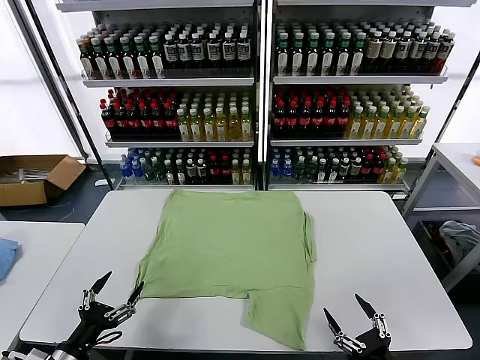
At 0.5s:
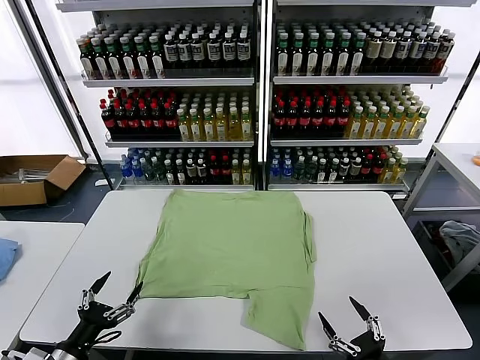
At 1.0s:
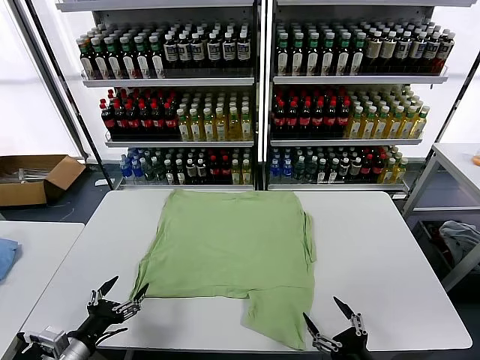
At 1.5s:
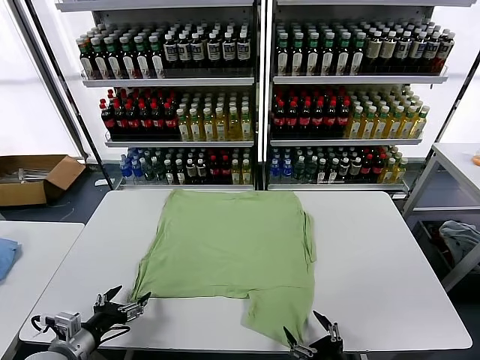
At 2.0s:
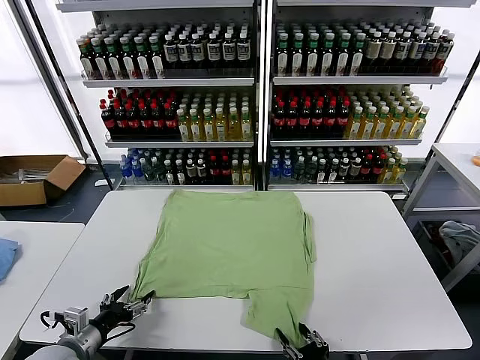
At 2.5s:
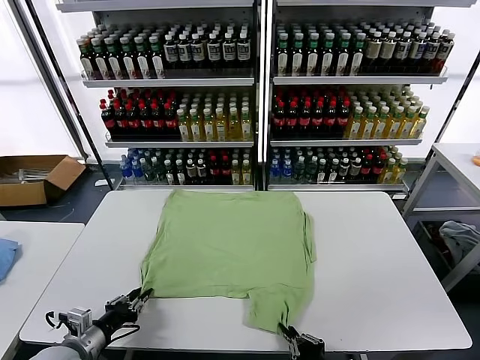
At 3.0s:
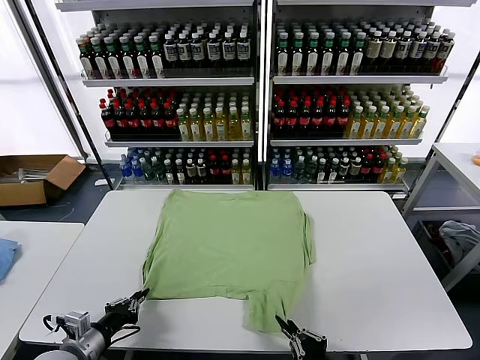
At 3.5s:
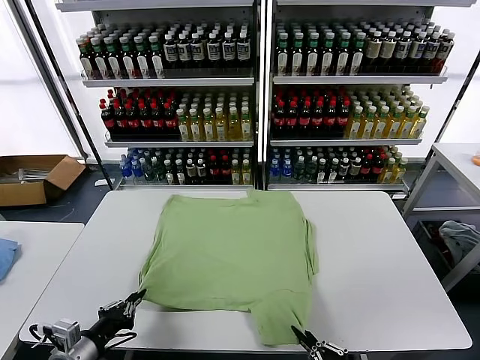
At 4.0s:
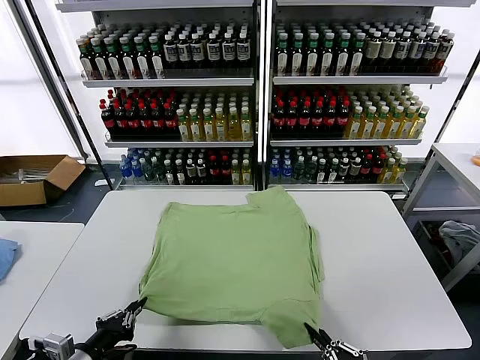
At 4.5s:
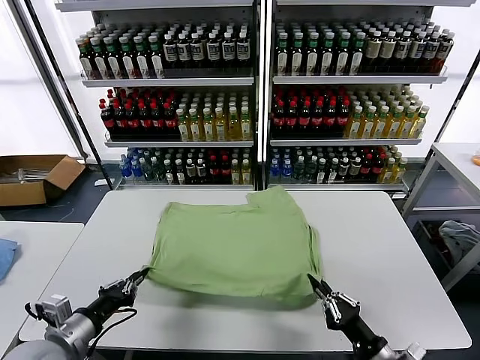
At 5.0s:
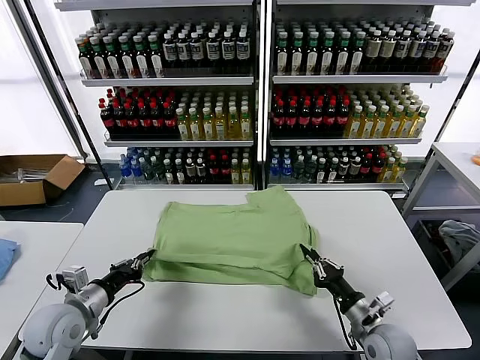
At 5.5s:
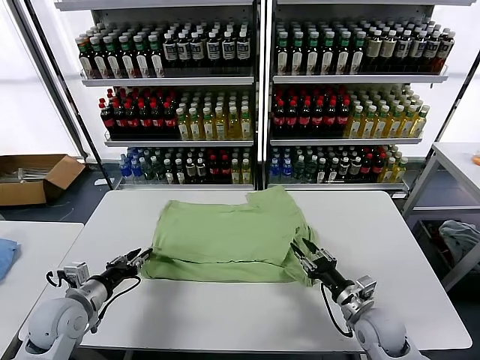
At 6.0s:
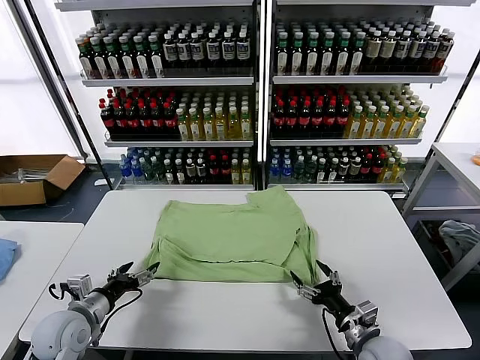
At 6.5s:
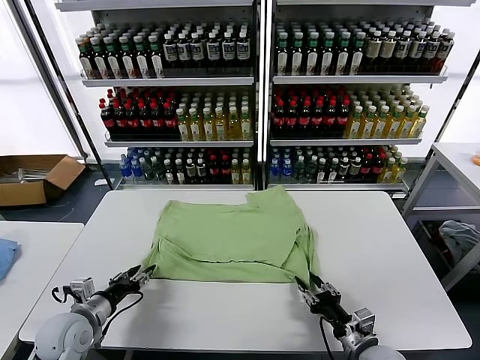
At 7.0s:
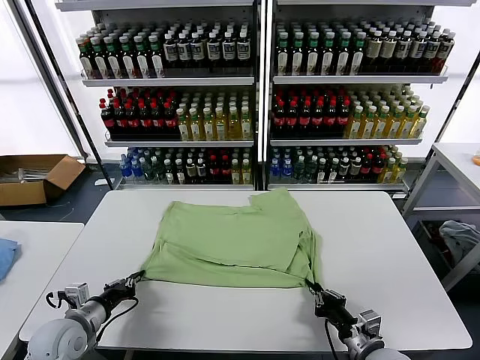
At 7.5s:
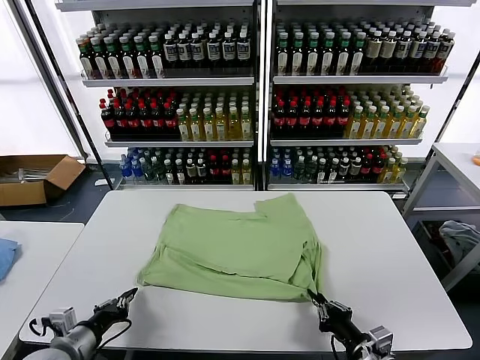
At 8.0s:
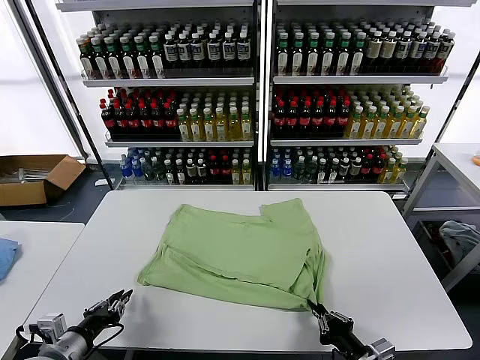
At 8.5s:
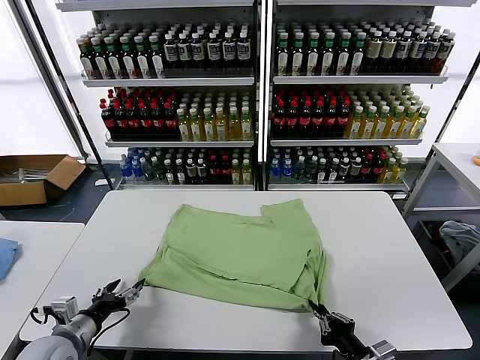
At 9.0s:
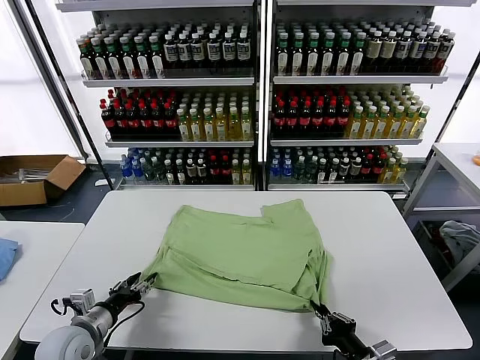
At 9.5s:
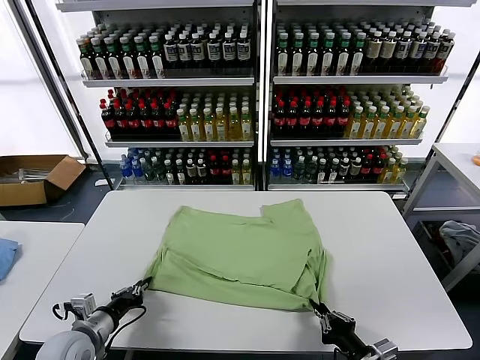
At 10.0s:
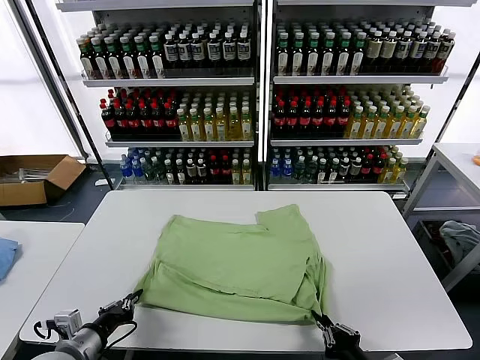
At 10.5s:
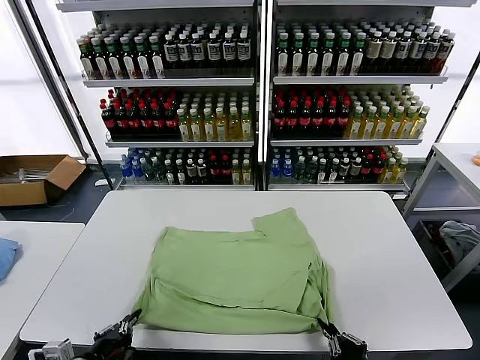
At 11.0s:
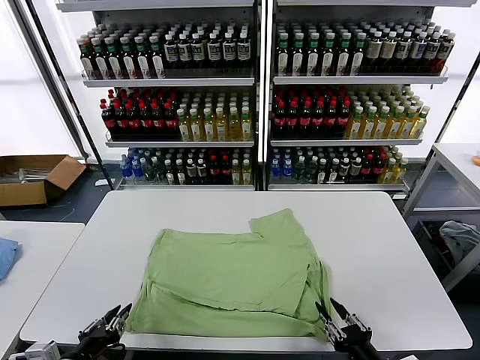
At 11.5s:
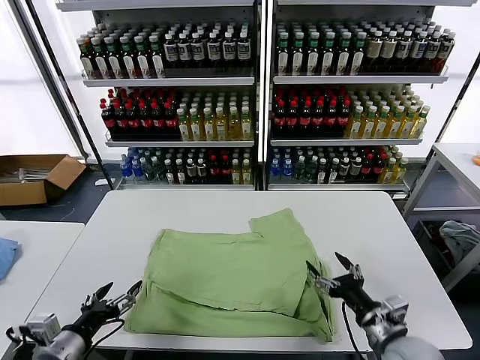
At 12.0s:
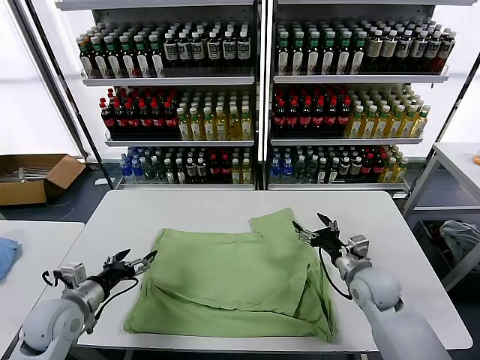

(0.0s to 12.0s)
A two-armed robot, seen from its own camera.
Task of the whole recording: fold and organize the clothes.
Step, 0.0s - 2.5s: use both grippers simultaneously to clamp the lower edge of the clothing fabric.
Step, 3.0s - 5.5s: use both grippers to drag the lower edge of the fabric forward and fold it over the upper edge.
Step, 6.0s - 10.5s: Drag the clothes downward with both gripper.
2.0s - 4.0s: The right gripper moves to the right, roughly 10 cm, and closes. Meanwhile the left gripper is displaced backward and upward by approximately 10 cm, and closes.
4.0s - 6.0s: The two grippers go some 15 cm forward. The right gripper opens up, while the left gripper opens its fingers.
6.0s - 8.0s: The two grippers go some 10 cm backward. The left gripper closes up. The right gripper closes.
8.0s - 10.0s: The left gripper opens and closes again.
10.0s - 12.0s: The right gripper moves forward, some 25 cm, and opens up. Meanwhile the left gripper heads forward, covering approximately 10 cm, and opens.

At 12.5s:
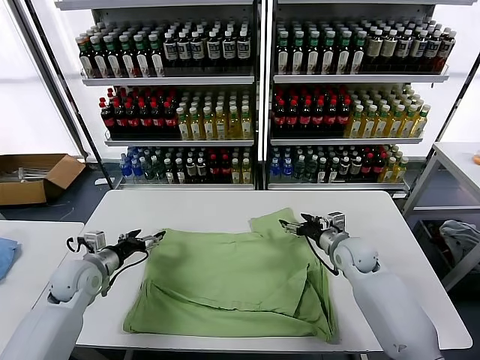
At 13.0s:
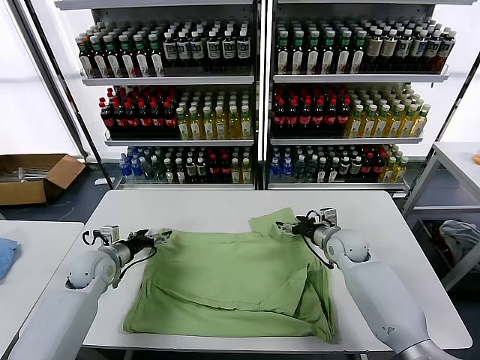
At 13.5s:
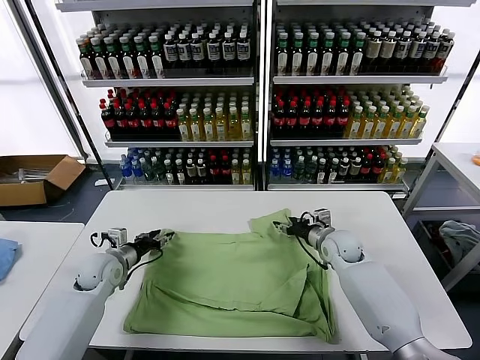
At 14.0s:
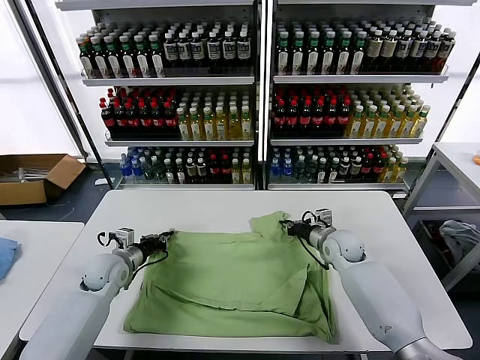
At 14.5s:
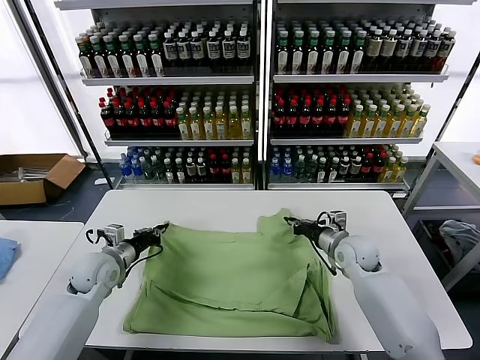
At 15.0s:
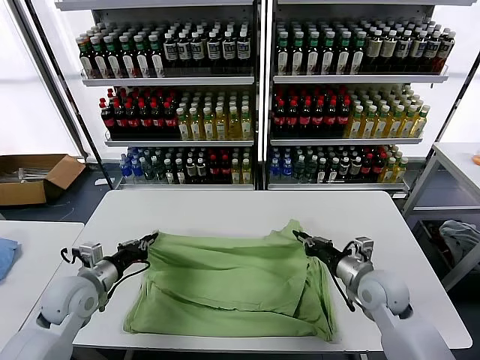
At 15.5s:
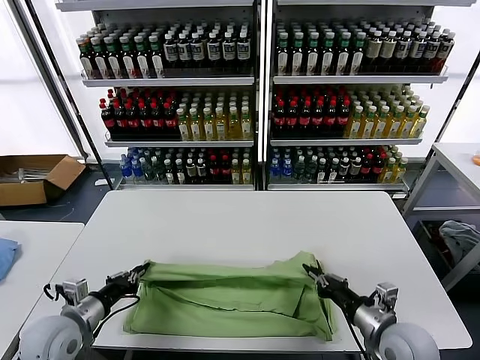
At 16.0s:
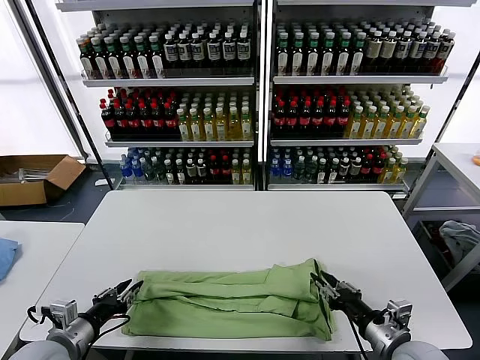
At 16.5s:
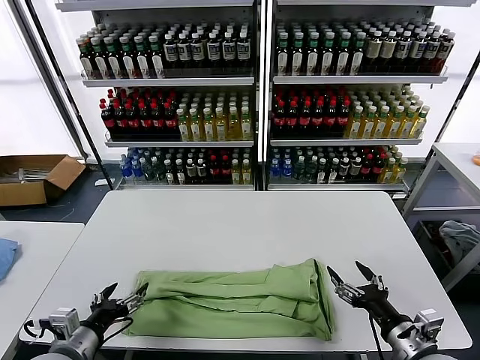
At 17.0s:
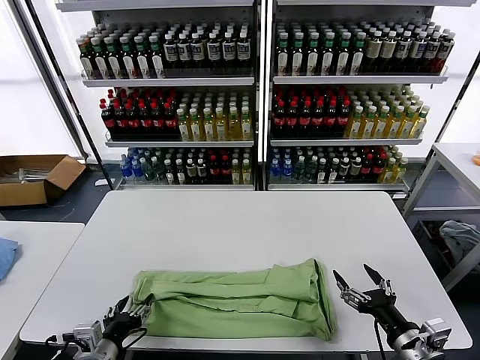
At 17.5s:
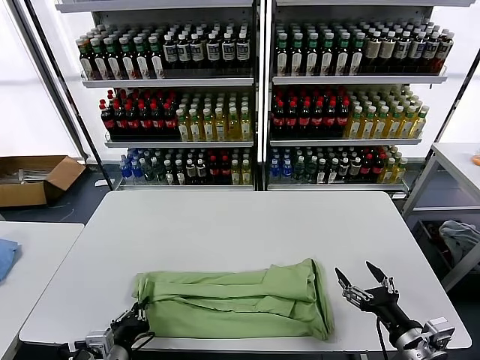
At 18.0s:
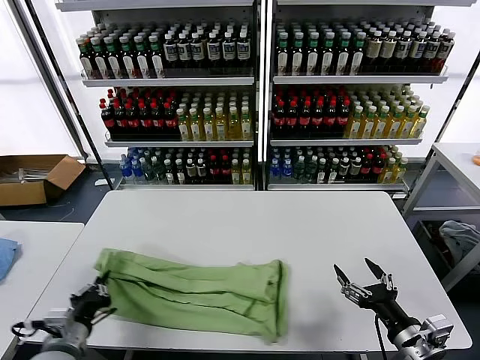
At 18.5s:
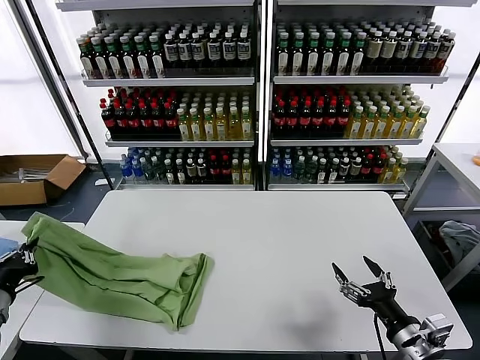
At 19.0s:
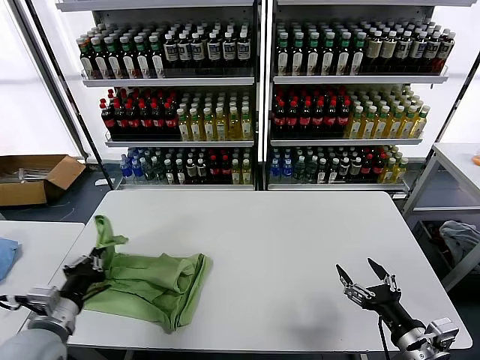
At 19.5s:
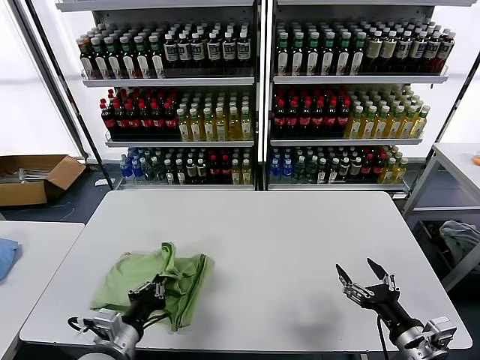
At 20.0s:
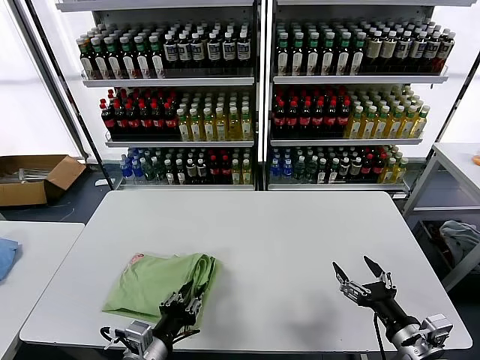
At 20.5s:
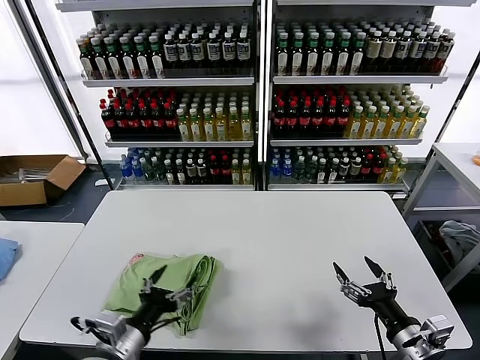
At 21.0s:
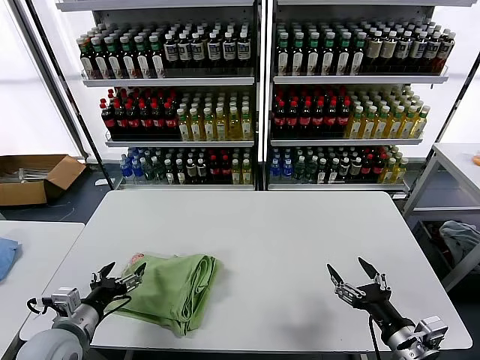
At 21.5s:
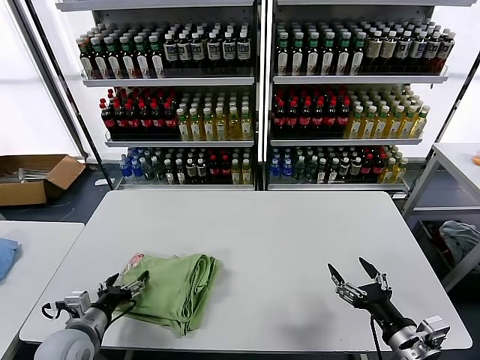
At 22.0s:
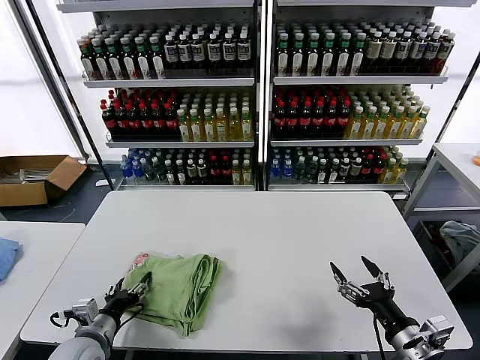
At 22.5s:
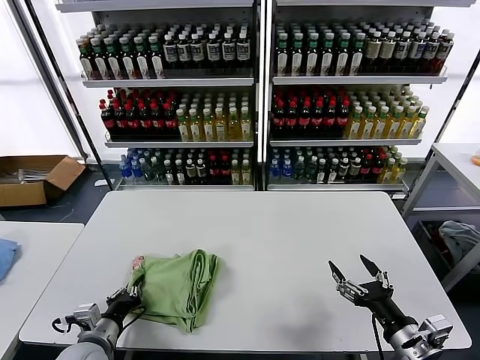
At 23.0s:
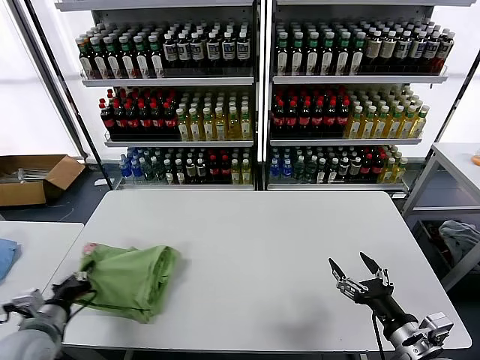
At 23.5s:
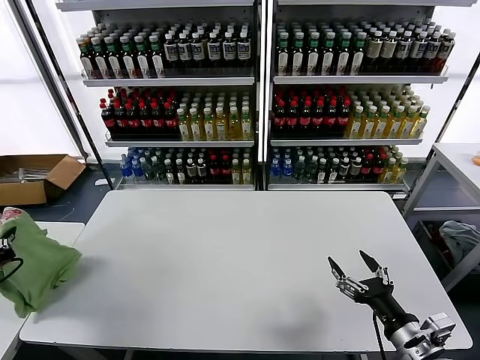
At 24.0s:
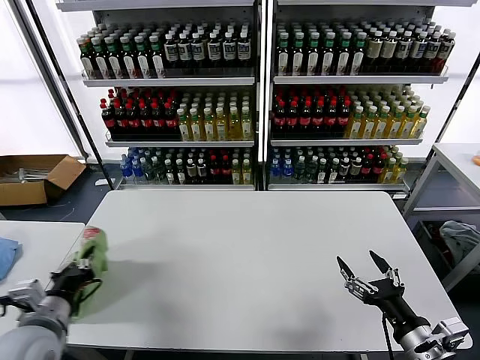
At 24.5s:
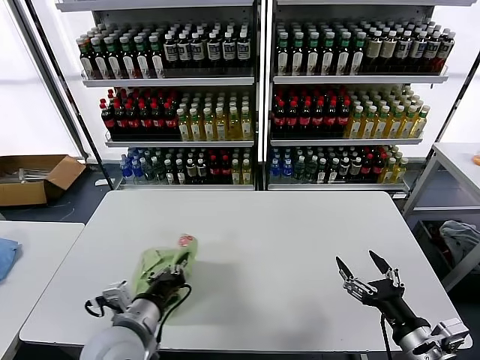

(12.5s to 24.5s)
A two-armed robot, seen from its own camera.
Task of the whole recording: fold and organize the clothes.
Step, 12.5s - 14.0s: use both grippers simultaneously to clamp the upper edge of the clothing fabric.
Step, 14.5s - 16.0s: use both grippers to drag the upper edge of the fabric backward and fold it over the lower edge.
Step, 16.5s - 17.5s: use the left gripper to clamp the left edge of the fabric.
Step, 18.0s - 20.0s: use the left gripper to drag the left edge of the fabric to the left and folds it over the right edge.
12.5s - 14.5s: The right gripper closes up, while the left gripper closes its fingers.
14.5s - 16.5s: The two grippers go some 25 cm backward. The left gripper opens its fingers. Meanwhile the right gripper opens its fingers.
16.5s - 18.5s: The left gripper travels to the left by some 15 cm, and closes.
18.5s - 20.5s: The left gripper moves to the right, some 25 cm, and opens its fingers.
20.5s - 22.5s: The left gripper goes approximately 15 cm to the left, downward and forward, and closes its fingers.
22.5s - 24.5s: The left gripper goes about 15 cm upward and to the right.

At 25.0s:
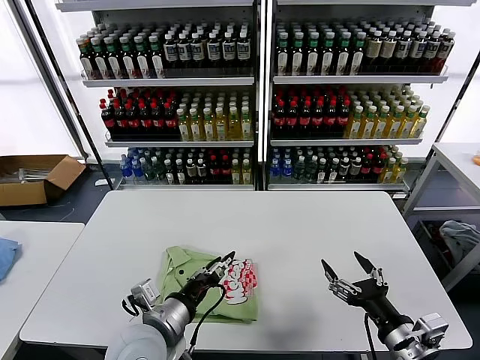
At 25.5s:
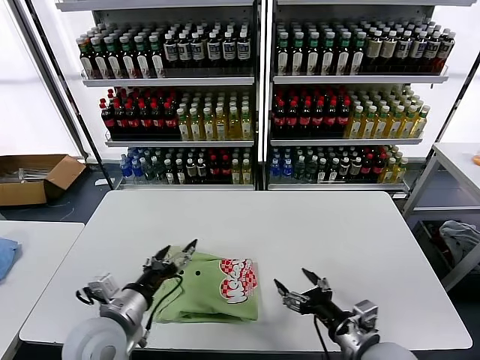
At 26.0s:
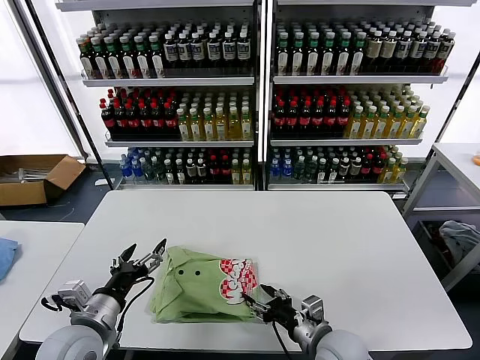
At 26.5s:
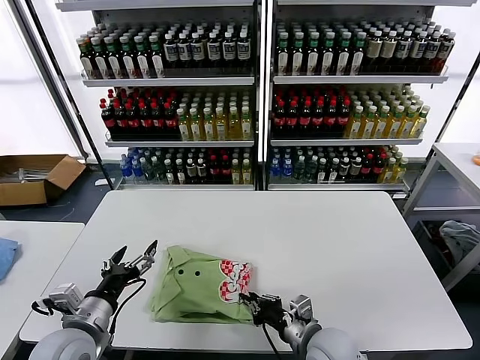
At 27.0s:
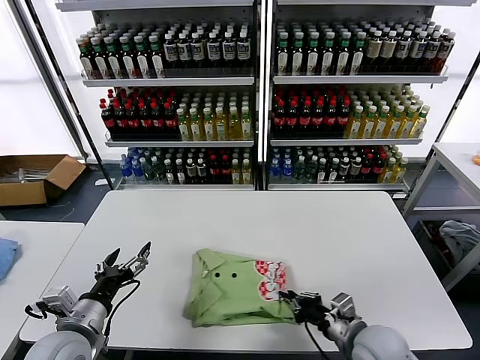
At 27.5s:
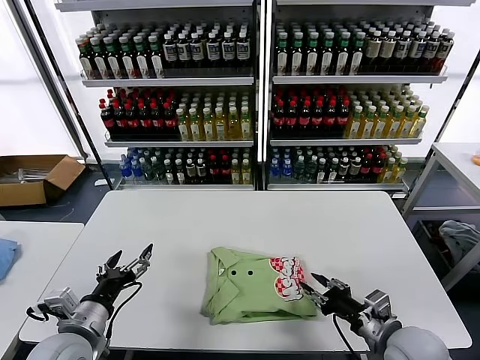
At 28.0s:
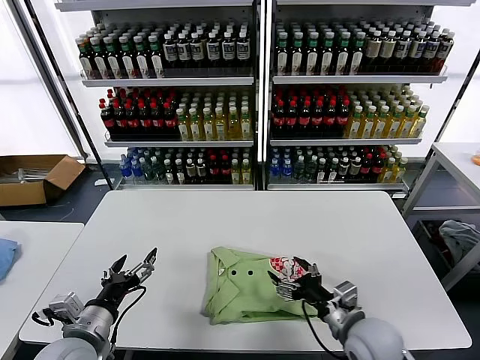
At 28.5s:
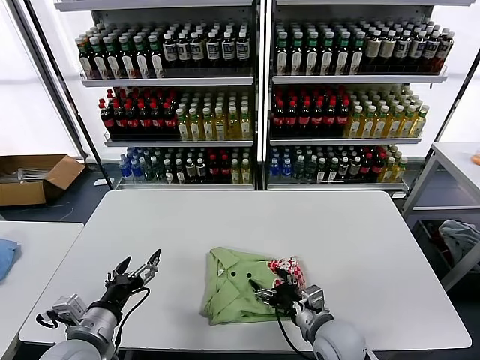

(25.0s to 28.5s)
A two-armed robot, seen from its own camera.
Task of the whole recording: fold and organize the clothes.
25.0s - 27.0s: The left gripper moves to the left, about 15 cm, and opens. Meanwhile the right gripper travels forward, downward and to the left by approximately 10 cm, and closes.
27.0s - 28.5s: The right gripper shifts approximately 5 cm to the left, and opens.
